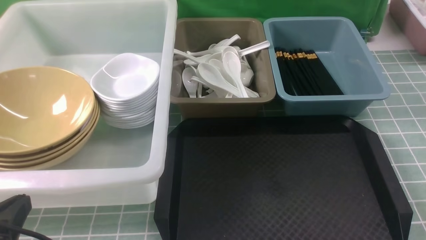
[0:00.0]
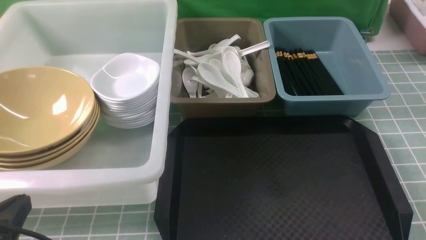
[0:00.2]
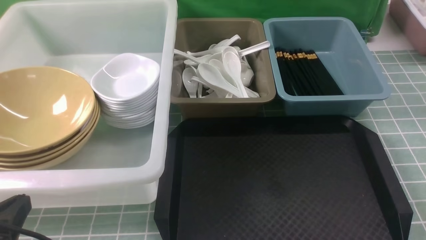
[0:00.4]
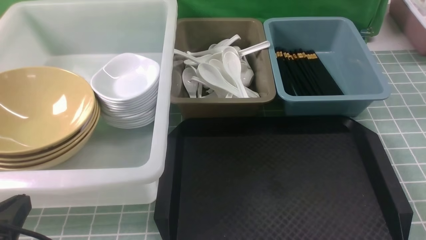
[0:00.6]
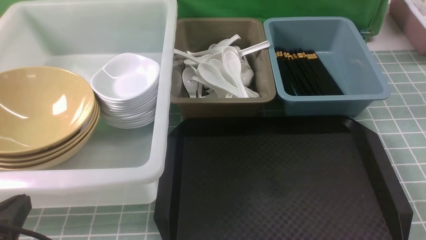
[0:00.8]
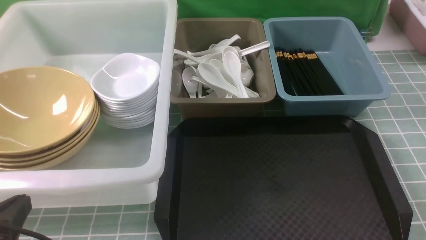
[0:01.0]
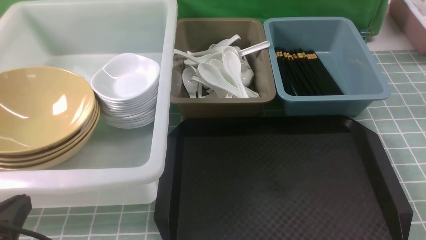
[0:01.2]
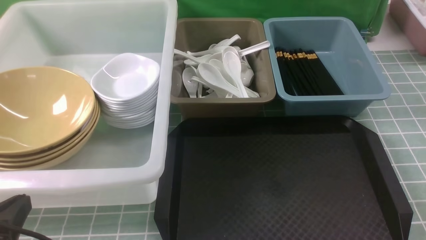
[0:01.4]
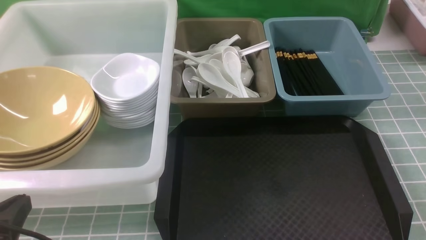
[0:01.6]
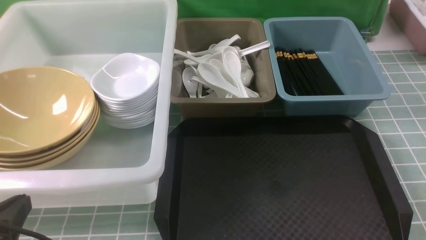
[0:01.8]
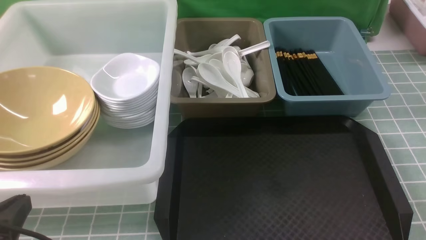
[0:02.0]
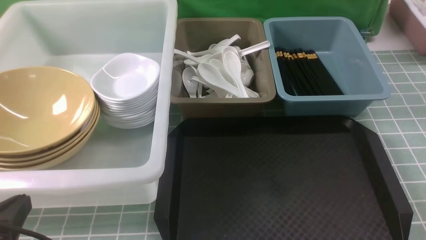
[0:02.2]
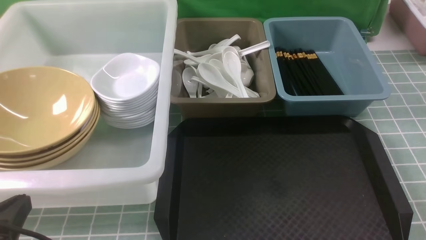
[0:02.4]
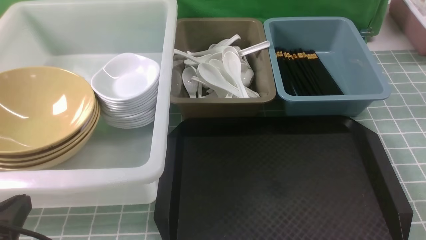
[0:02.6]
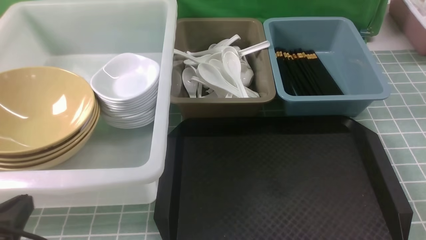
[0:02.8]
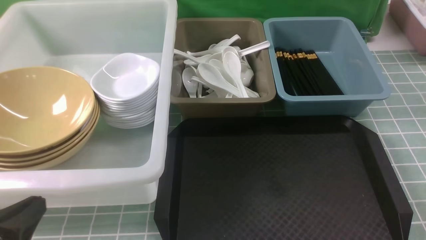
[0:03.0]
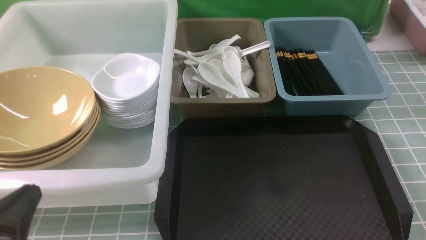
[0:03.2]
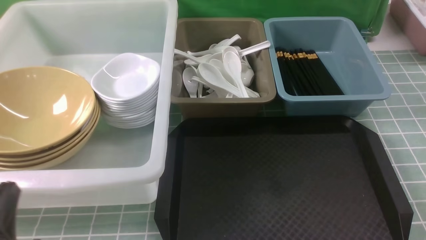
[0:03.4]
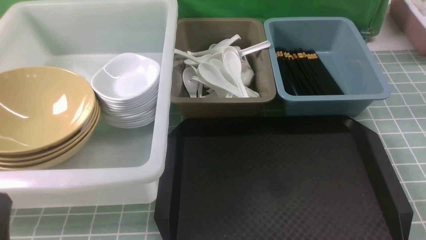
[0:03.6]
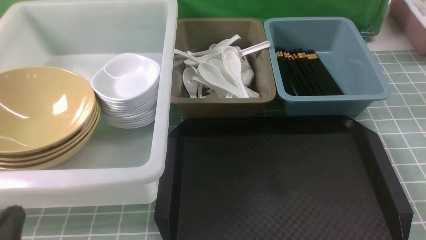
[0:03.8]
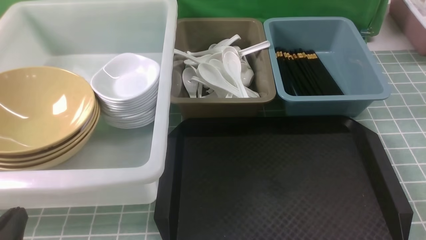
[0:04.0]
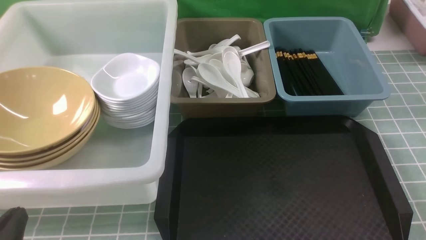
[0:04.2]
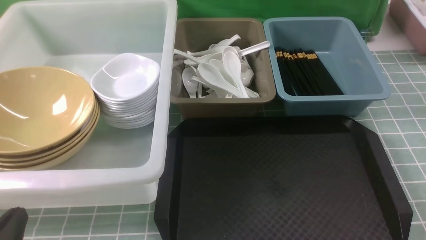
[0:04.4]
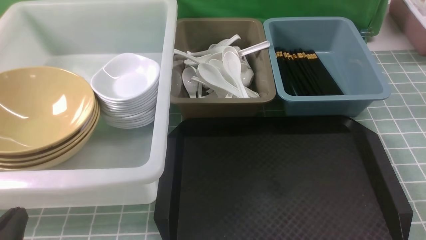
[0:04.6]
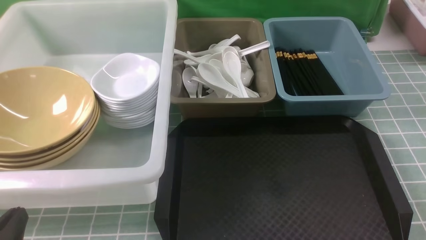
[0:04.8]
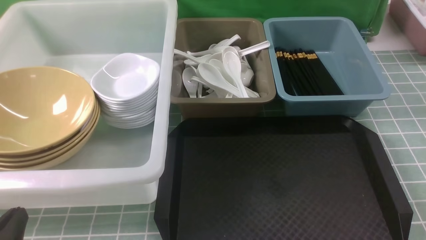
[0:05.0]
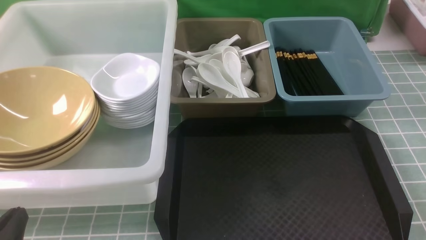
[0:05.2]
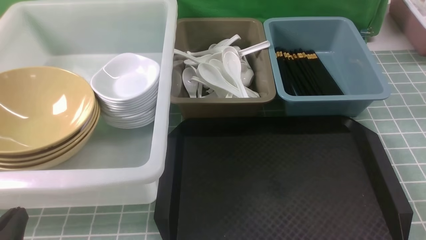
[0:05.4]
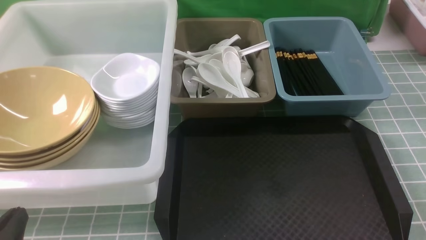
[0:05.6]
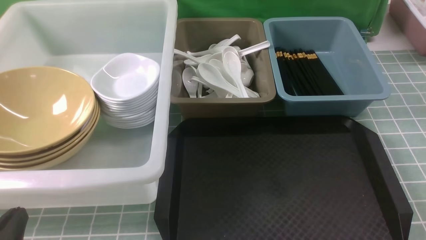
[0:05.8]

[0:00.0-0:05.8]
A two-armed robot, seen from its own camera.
Task of the whole recording: on blue table put chopsticks spoon bowls plates into blue grey white boxes.
0:01.4 to 0:02.8: Neither gripper changes place.
0:02.8 to 0:04.4: The left gripper shifts some 5 cm downward.
0:04.4 to 0:05.8: Neither gripper changes place.

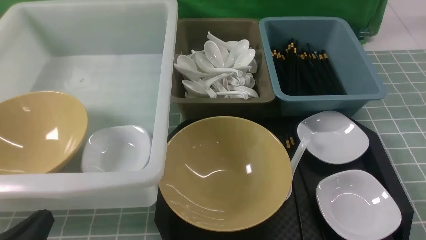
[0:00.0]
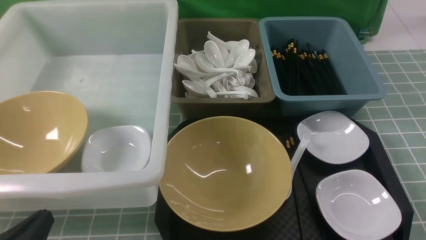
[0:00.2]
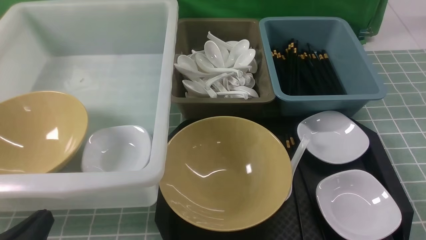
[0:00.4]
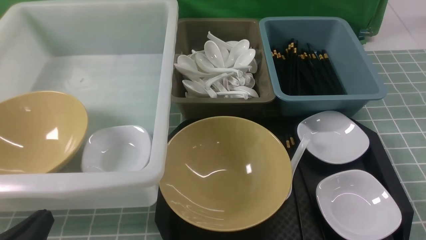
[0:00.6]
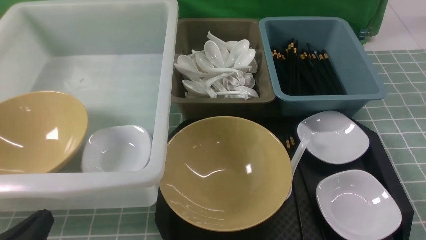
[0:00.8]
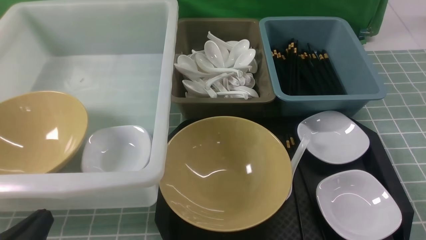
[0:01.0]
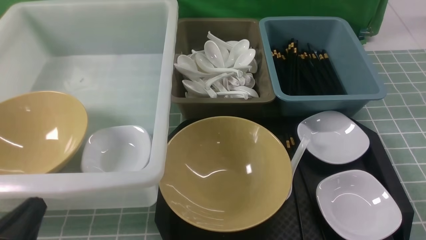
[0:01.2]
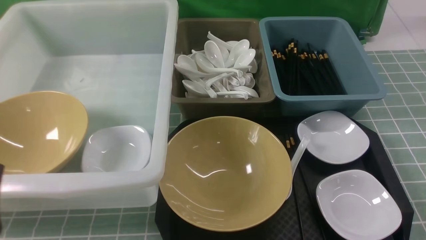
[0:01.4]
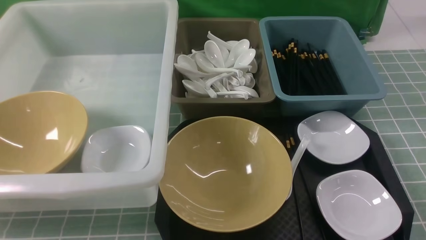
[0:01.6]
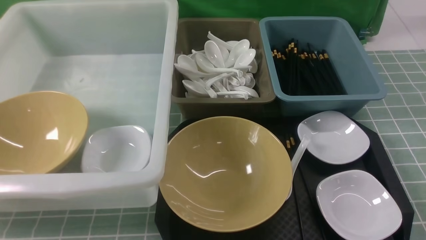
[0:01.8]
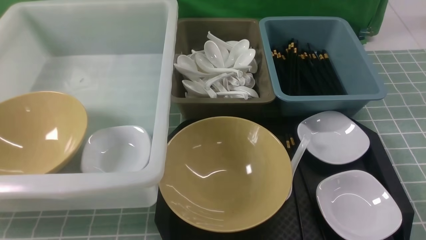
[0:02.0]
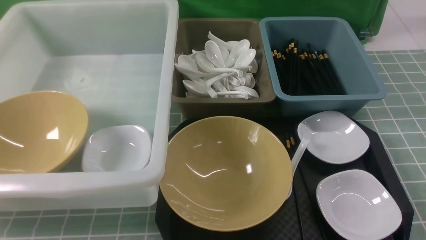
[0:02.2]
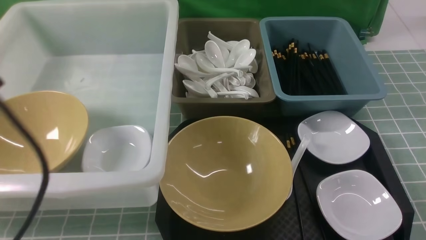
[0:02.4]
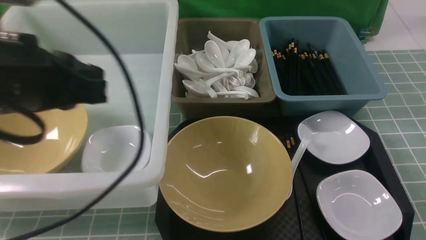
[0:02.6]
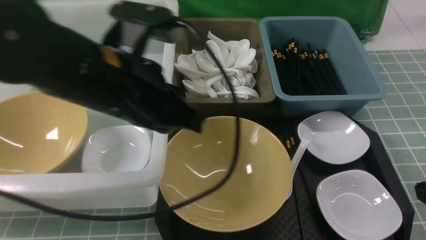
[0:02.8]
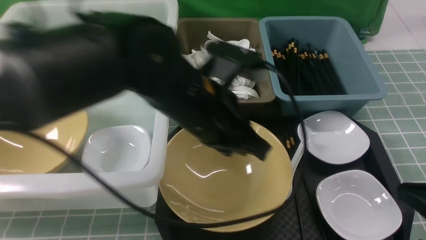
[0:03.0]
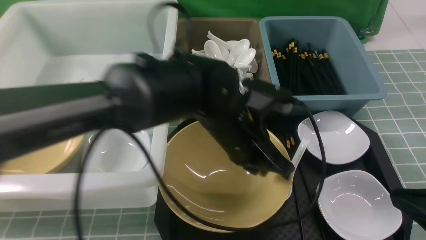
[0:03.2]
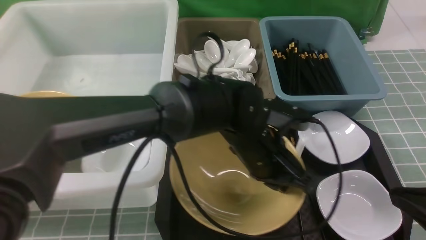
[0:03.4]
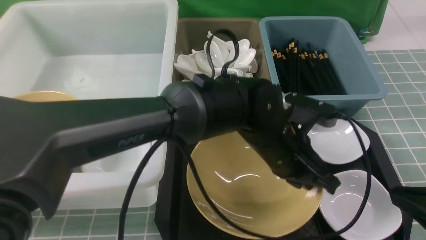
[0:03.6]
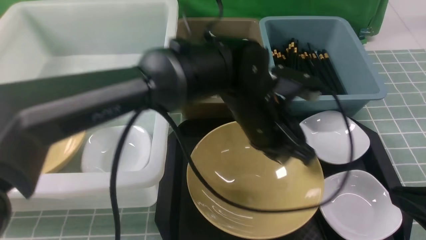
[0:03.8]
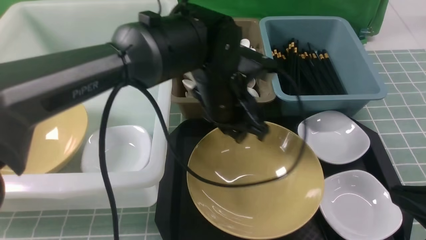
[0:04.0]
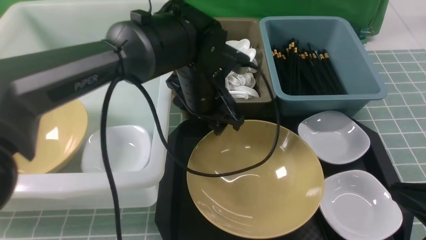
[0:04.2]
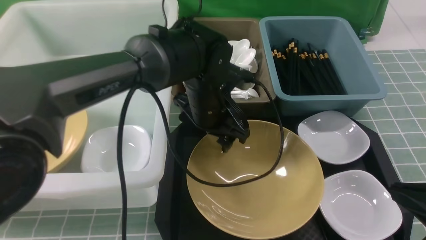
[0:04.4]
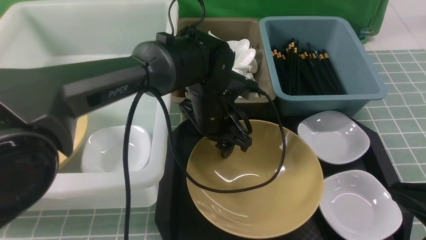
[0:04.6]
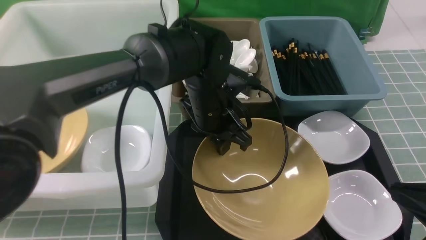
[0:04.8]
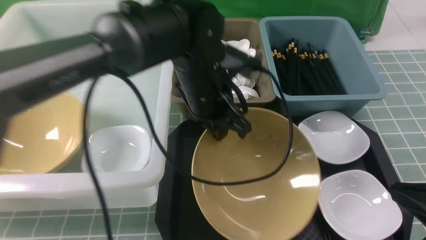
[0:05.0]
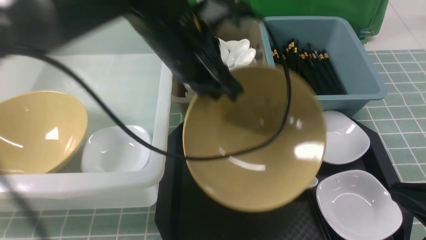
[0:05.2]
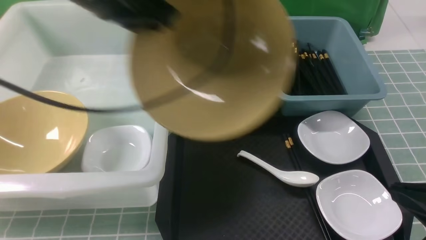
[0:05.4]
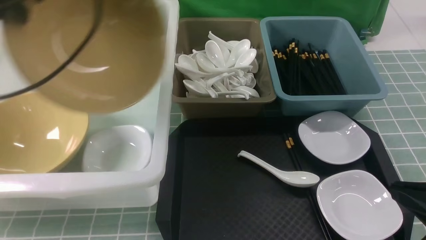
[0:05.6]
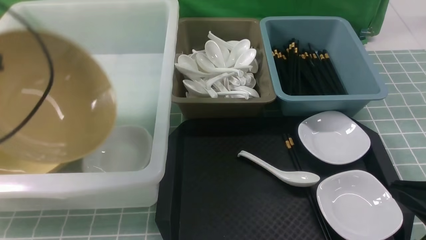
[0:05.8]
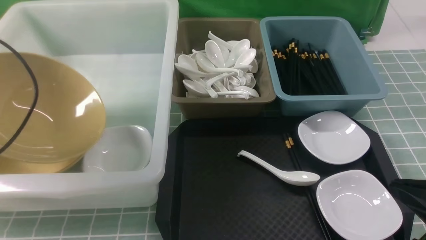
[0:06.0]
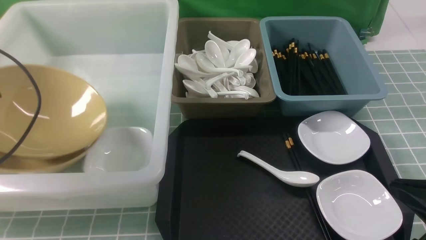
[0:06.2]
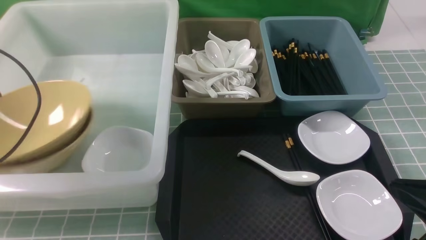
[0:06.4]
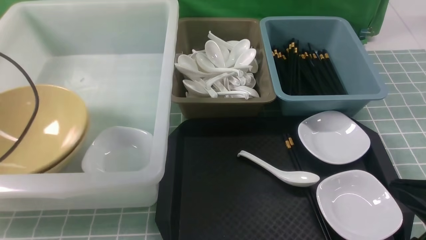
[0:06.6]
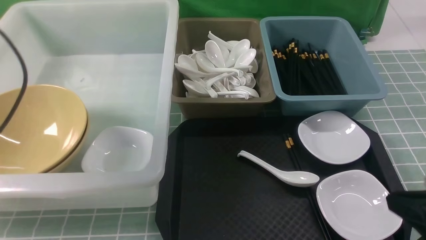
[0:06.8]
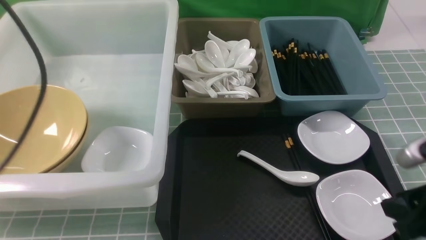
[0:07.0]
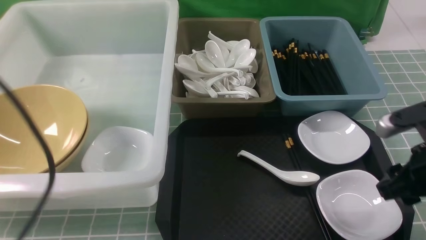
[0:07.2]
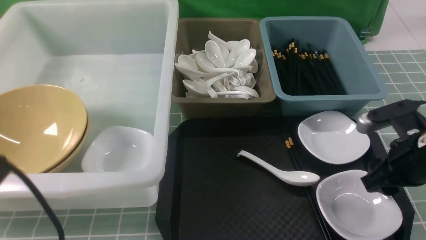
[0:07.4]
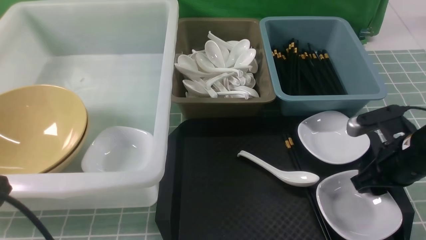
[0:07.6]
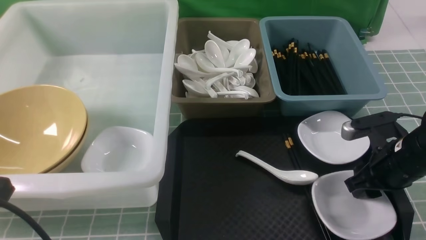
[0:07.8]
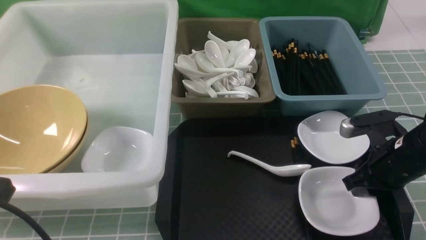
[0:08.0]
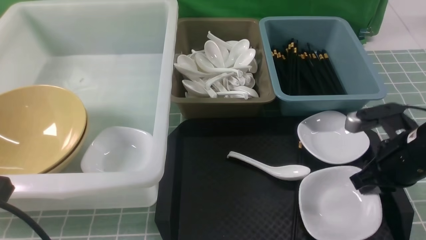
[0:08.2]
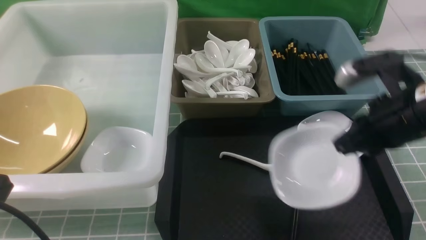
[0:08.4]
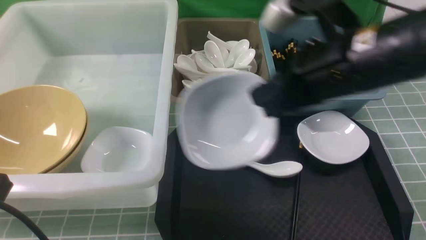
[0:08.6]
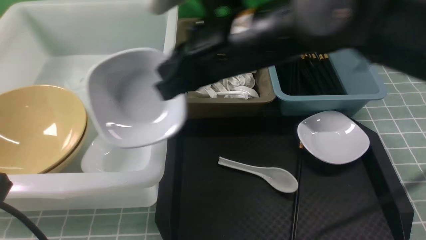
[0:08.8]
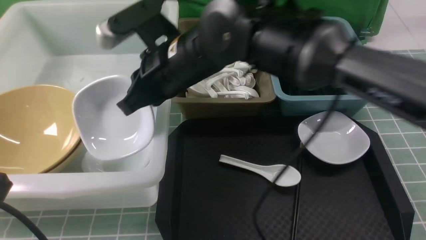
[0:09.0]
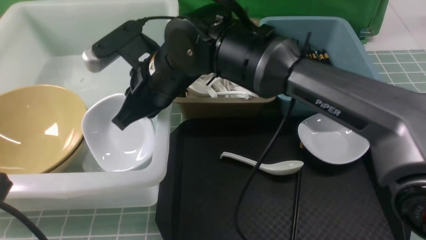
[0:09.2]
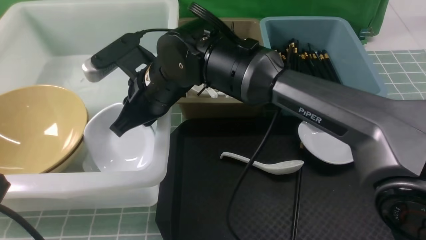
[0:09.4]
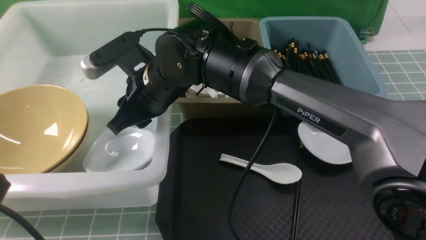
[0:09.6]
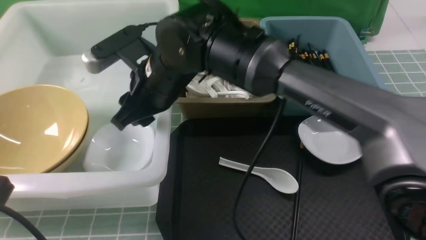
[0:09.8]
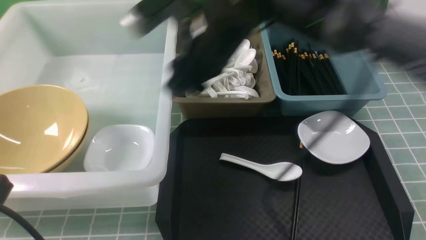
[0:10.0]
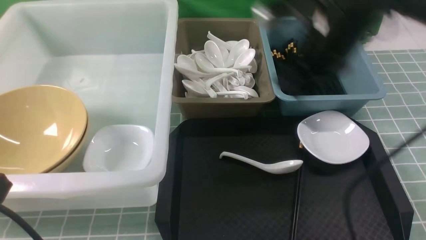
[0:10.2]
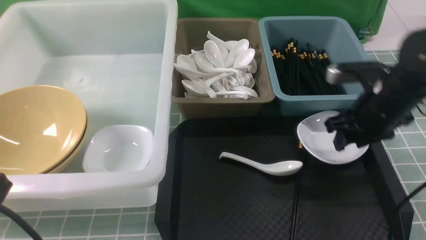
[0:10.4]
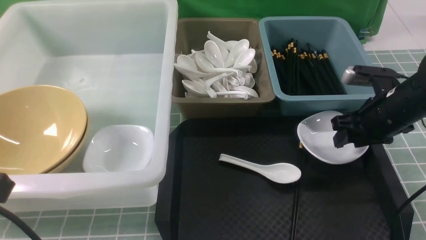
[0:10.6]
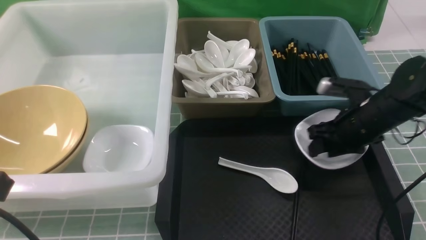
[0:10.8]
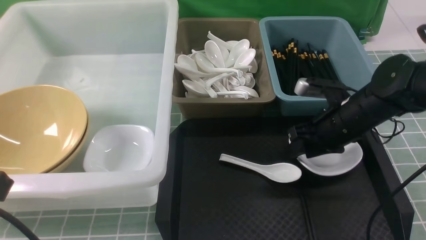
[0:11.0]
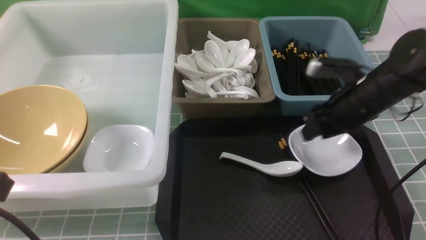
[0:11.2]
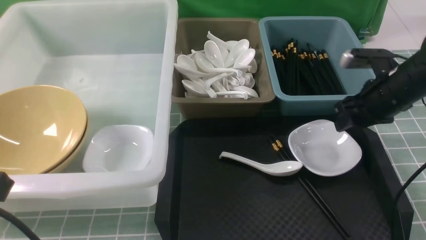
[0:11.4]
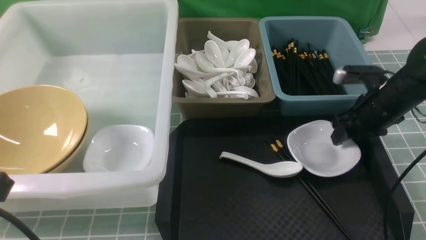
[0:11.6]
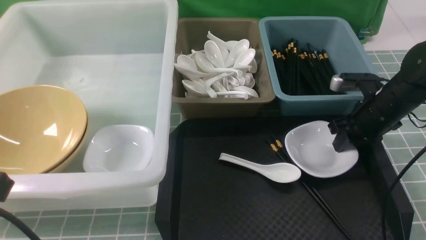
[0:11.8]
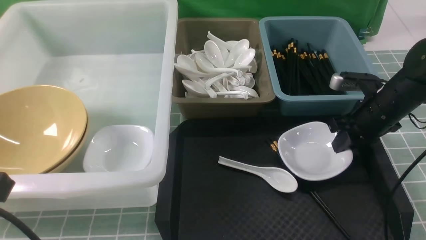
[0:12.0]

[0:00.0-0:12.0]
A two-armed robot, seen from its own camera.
Task of the whole recording: on blue table put chopsticks spoon bowls plates into blue grey white boxes.
Step, 0:00.0 to 0:04.8: use the left arm to grab the yellow noodle bowl on the left.
Step, 0:05.0 to 0:06.6: use the left arm to put the noodle bowl into the large storage box on the left.
Step, 0:06.8 to 0:08.0: use the right arm to grab the plate.
Step, 0:08.2 to 0:09.8: use the right arm to put the plate into the large storage box on the left.
Step, 0:10.0 to 0:12.0: use the right arm to grab the plate.
0:00.0 to 0:01.6: The left gripper is displaced upward by roughly 10 cm.
0:01.6 to 0:03.0: The left gripper shifts approximately 30 cm to the right and forward, while the right gripper heads forward, covering roughly 5 cm, and closes its fingers.
0:03.0 to 0:04.4: The left gripper is displaced forward and downward by approximately 10 cm, and opens.
0:04.4 to 0:06.0: The left gripper is displaced to the left by roughly 35 cm, and closes.
0:06.0 to 0:07.6: The left gripper heads backward and to the right, covering approximately 20 cm, and opens, then closes once more. Meanwhile the right gripper travels forward and downward by some 15 cm, and opens up.
0:07.6 to 0:09.0: The right gripper moves to the left and upward, approximately 35 cm, and closes.
0:09.0 to 0:10.4: The right gripper goes approximately 25 cm to the right, and opens up.
0:10.4 to 0:12.0: The right gripper moves approximately 5 cm, and closes up.
